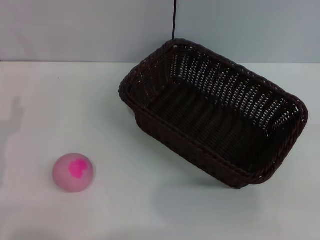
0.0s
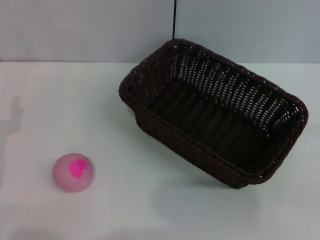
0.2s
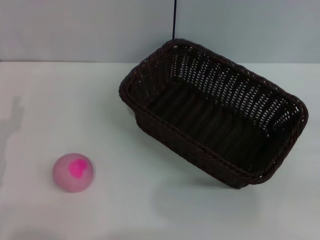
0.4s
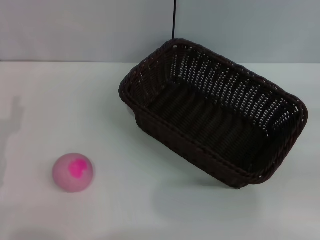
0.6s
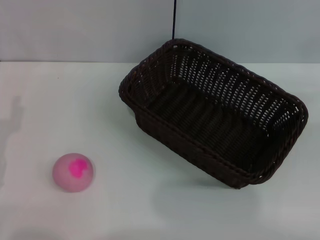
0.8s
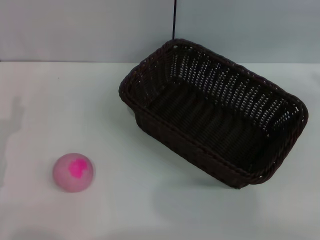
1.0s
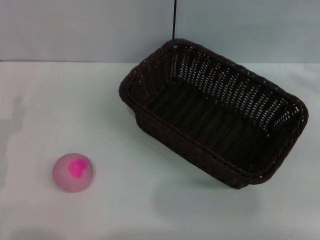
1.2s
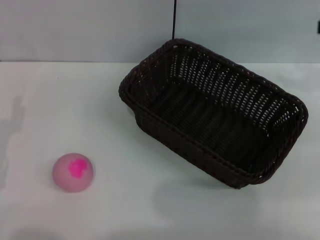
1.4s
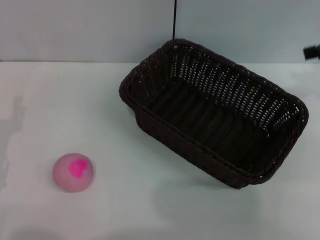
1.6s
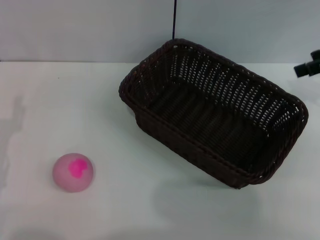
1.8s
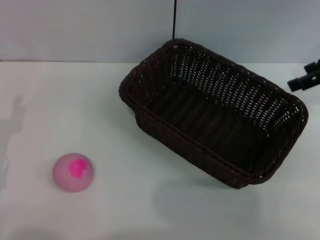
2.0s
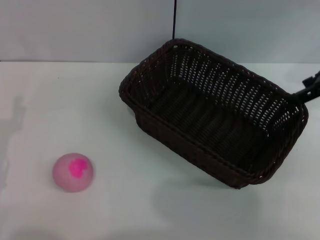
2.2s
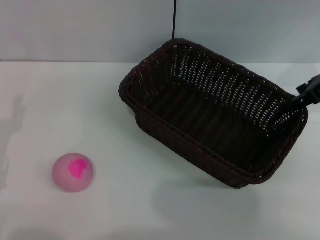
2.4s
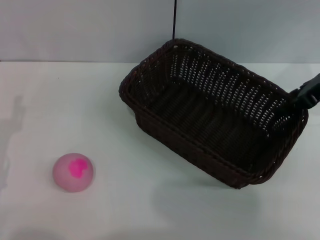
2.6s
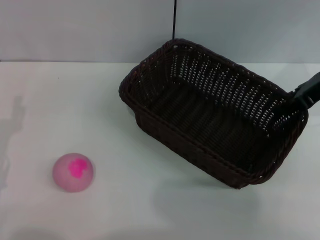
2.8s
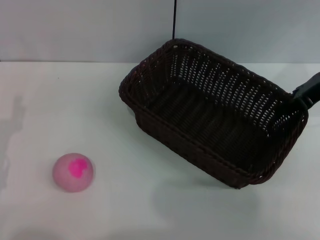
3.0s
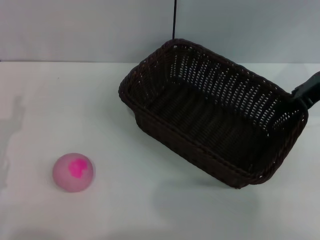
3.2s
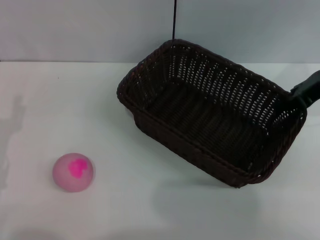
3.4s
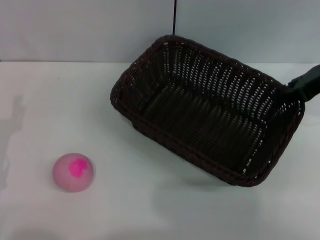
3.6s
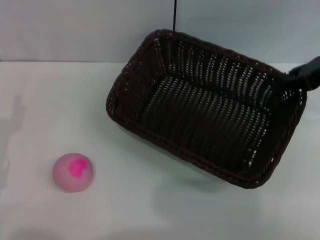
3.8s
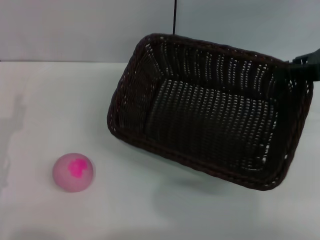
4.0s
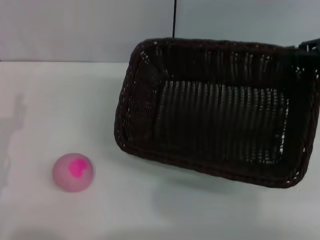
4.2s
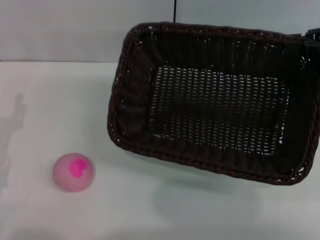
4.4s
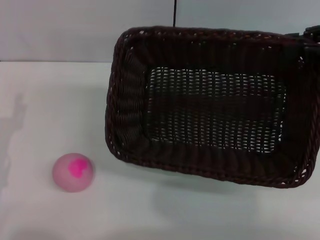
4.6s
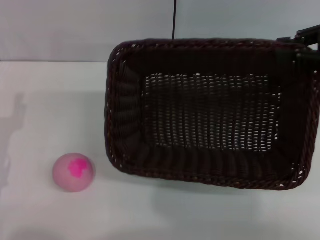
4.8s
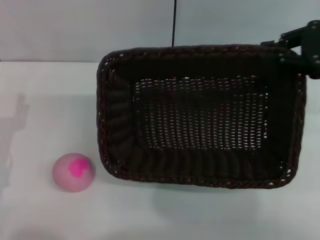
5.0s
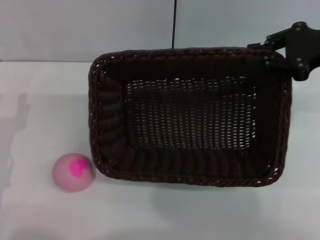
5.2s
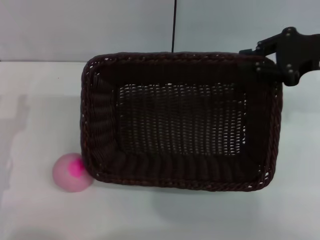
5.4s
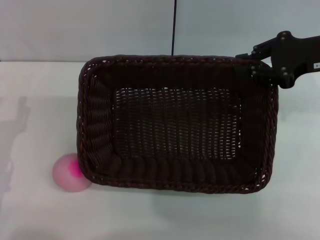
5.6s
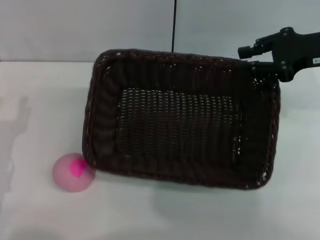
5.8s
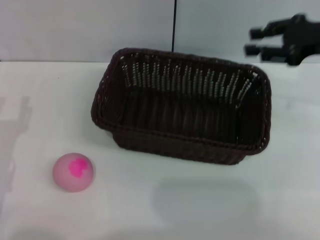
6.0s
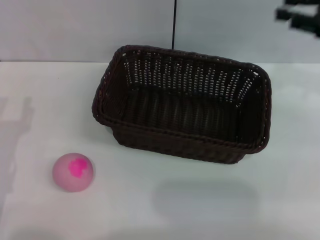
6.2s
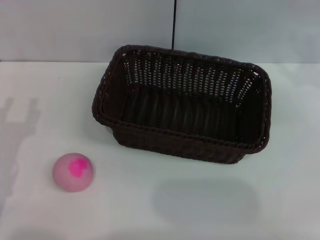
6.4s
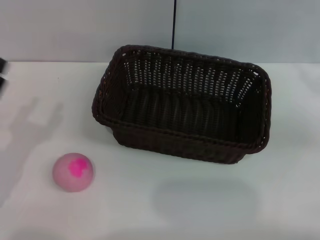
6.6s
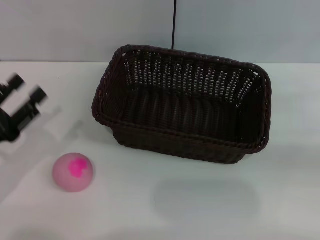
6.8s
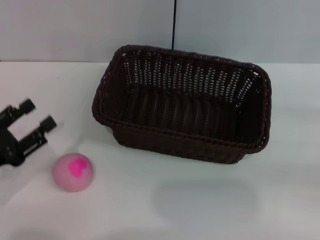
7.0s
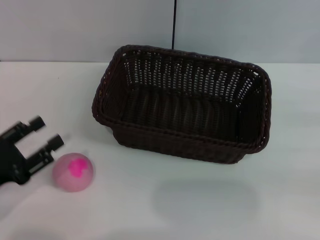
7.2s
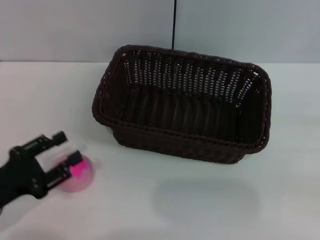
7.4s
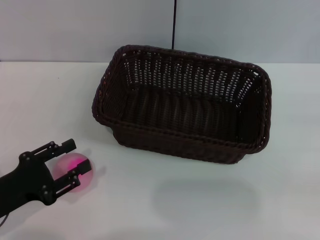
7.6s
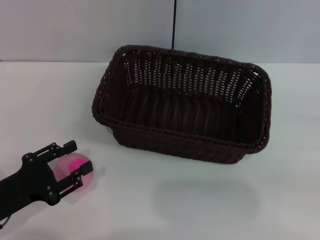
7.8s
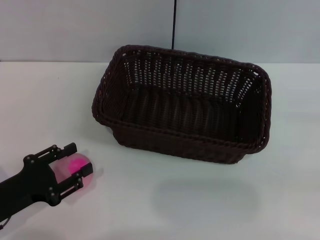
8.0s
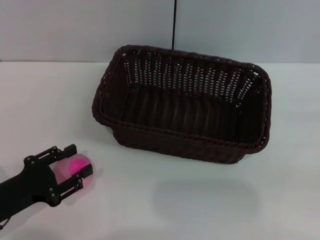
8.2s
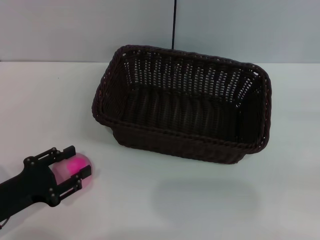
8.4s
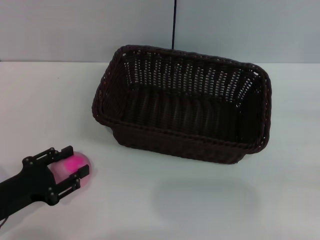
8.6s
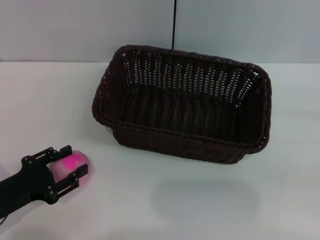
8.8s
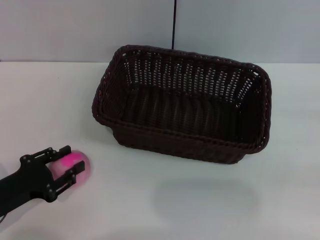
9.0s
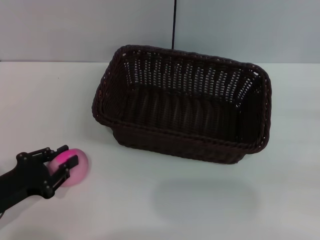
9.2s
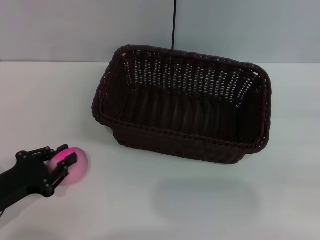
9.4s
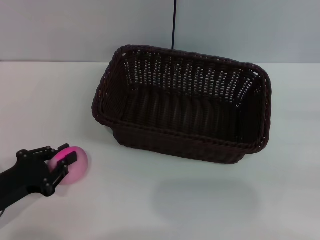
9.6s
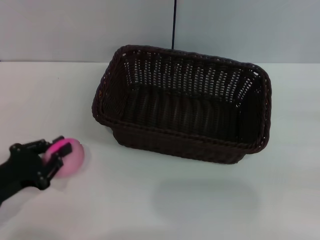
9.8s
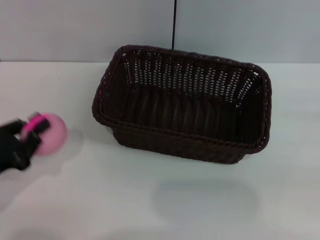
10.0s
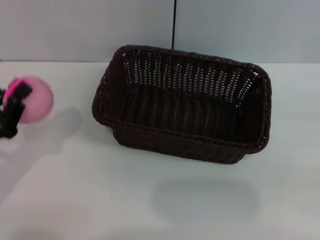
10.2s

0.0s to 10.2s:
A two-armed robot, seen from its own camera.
Step, 0.0s to 3.8s: Pick up the dark basket with the right gripper.
Step, 4.2s to 6.4s: Place the dark basket in the center of view with the right gripper.
Step, 6.6s to 10.0s: Pick up the peach with the left gripper.
0.0s to 1.4s: The right gripper travels upward and forward by approximately 25 cm.
1.4s to 3.0s: The right gripper moves to the left and downward, about 10 cm, and opens, then closes once more.
3.0s to 4.4s: The right gripper goes about 5 cm to the right, and closes.
4.4s to 5.8s: The right gripper travels to the left by about 5 cm.
5.8s to 7.2s: The right gripper heads to the right, backward and downward, covering some 25 cm.
7.2s to 8.8s: There are only small adjustments of the grippers.
8.8s to 10.2s: The left gripper closes up.

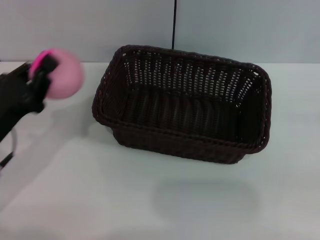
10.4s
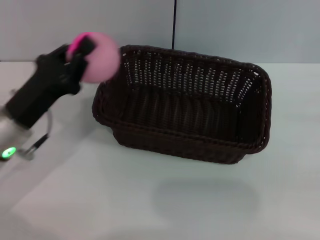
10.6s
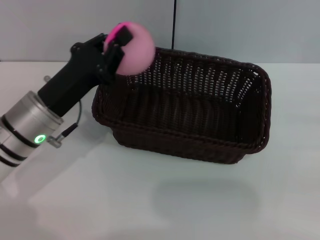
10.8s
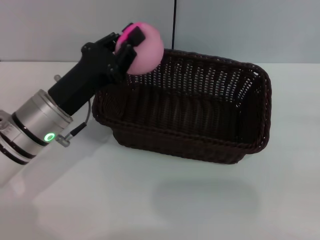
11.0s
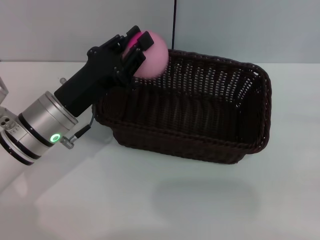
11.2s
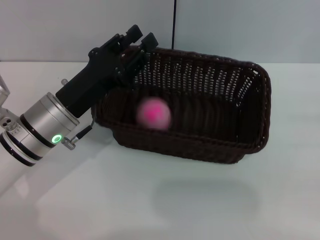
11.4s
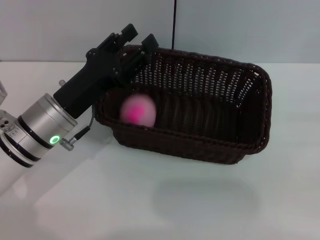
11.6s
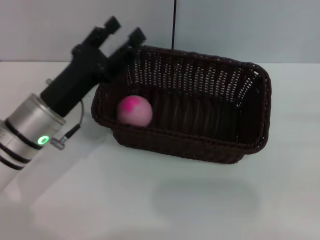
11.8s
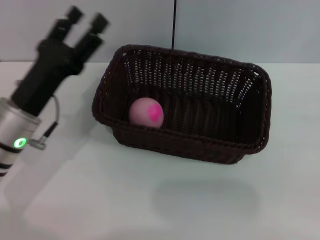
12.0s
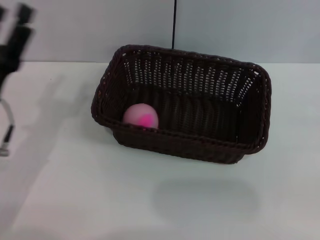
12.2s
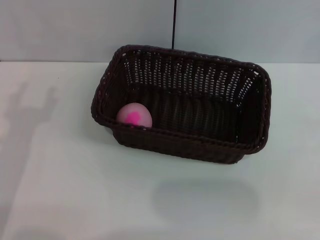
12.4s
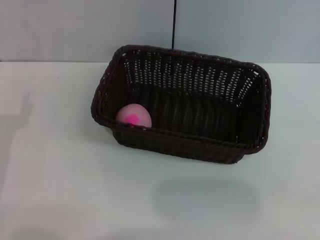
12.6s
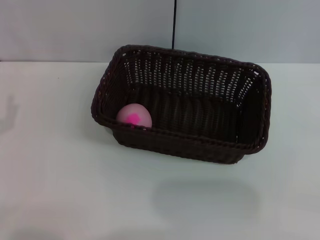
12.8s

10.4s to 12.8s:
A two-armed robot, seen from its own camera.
Step, 10.4s to 12.0s: Place the peach into the basket with the left gripper.
10.4s to 11.6s: The left gripper shifts roughly 10 cm to the right and forward, and opens.
11.6s to 12.8s: The left gripper is displaced to the left and backward by some 15 cm, and opens.

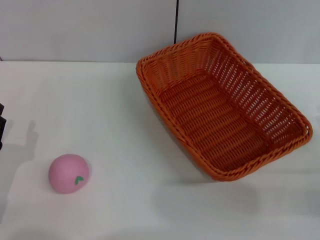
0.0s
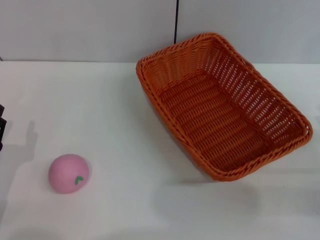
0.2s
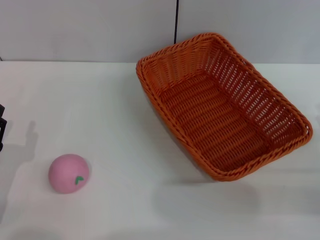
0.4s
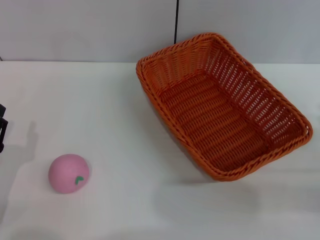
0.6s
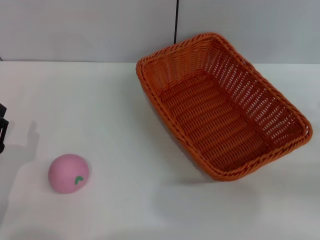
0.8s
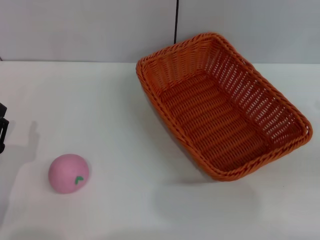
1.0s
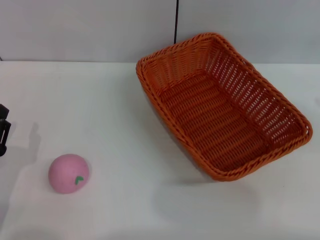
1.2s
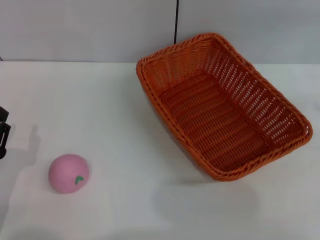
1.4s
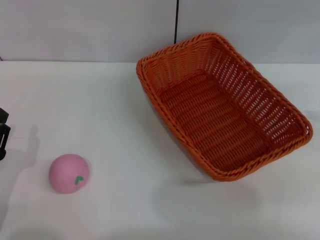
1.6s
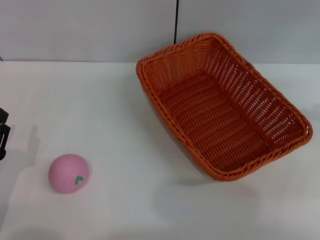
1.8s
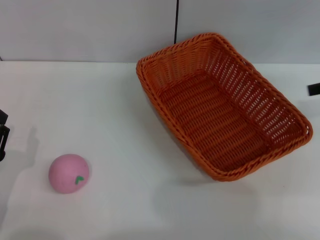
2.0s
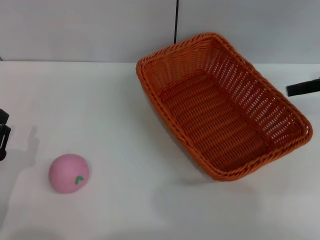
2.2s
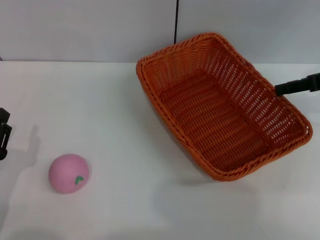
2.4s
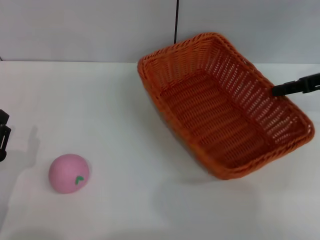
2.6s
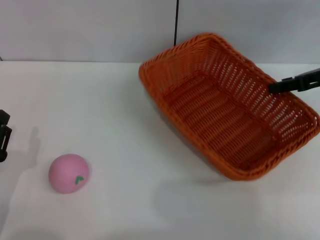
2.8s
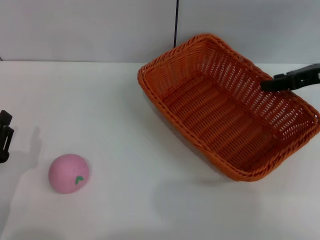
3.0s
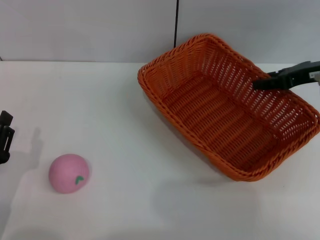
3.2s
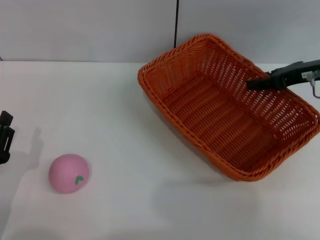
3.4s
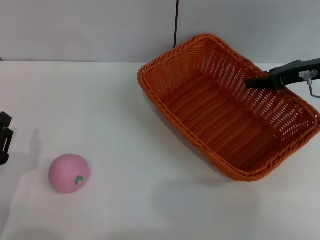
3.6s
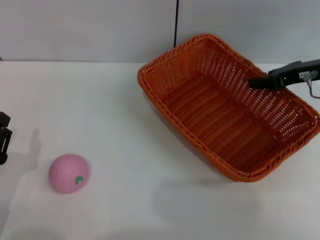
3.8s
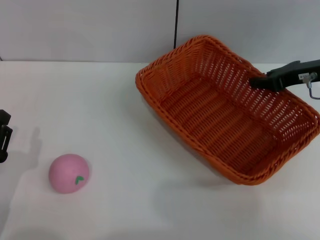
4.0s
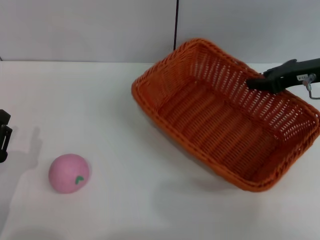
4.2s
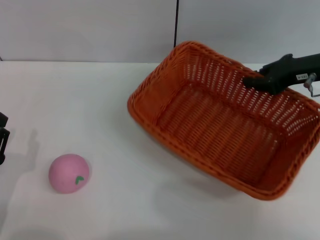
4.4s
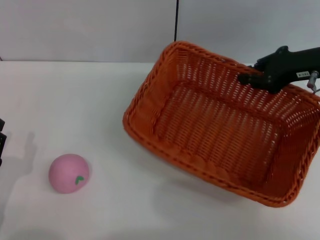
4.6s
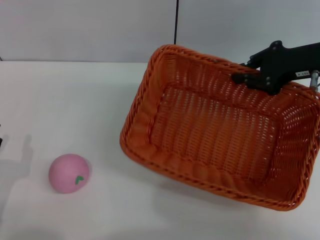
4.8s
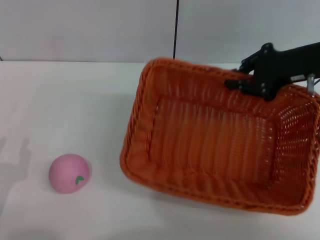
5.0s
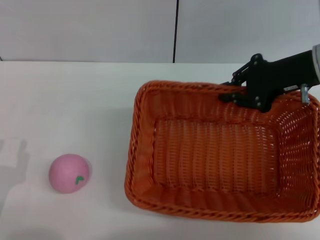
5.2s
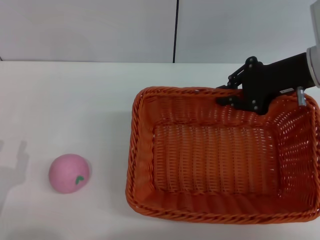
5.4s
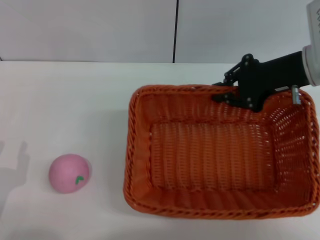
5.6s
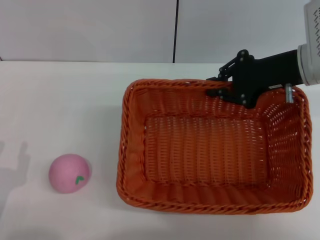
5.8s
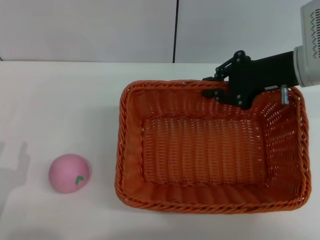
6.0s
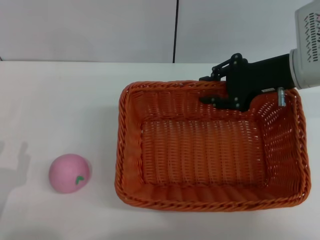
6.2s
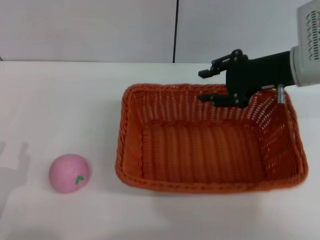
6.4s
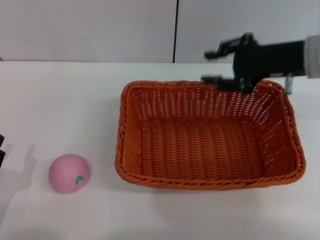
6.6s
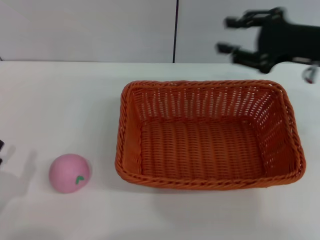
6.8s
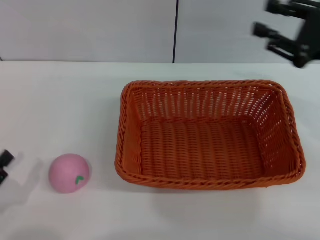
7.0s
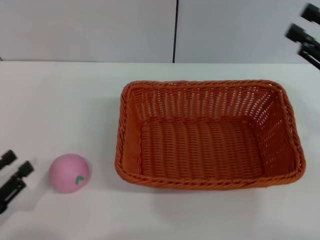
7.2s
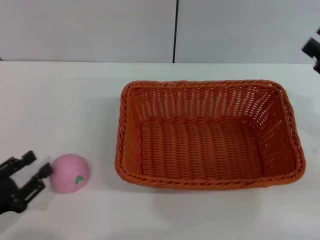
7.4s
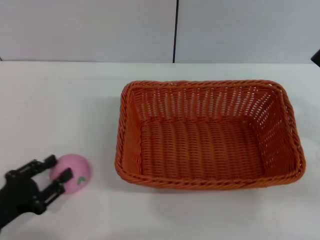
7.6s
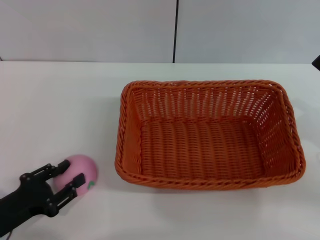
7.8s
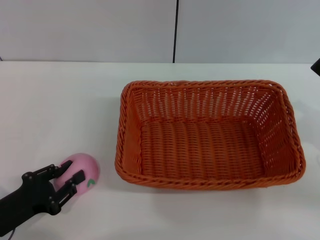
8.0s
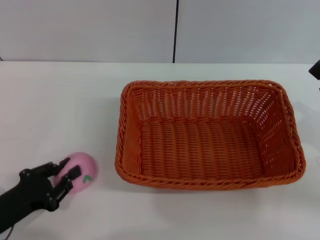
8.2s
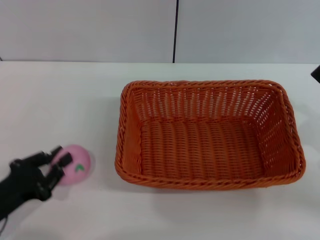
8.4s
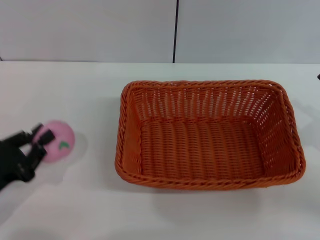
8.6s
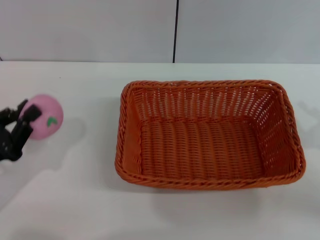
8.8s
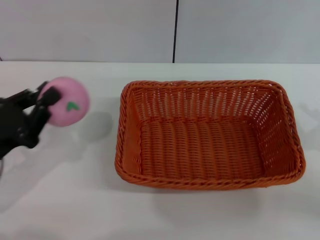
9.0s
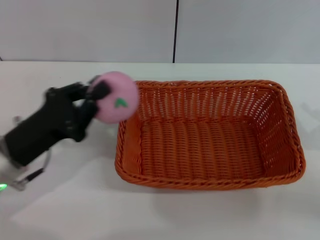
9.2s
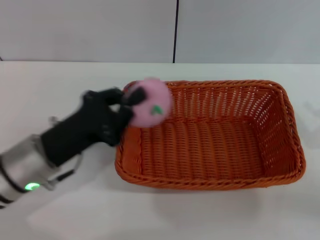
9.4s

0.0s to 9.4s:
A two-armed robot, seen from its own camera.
Step, 0.0s to 4.6s: Pick up the light basket with the right gripper.
Step, 4.8s to 6.6s: Place the light basket in the center of view with the right gripper.
Step, 6.8s to 8.8s: Pick up the peach with the left gripper.
0.0s to 1.6s: The right gripper heads upward and forward, covering approximately 25 cm.
1.6s to 3.2s: The right gripper heads to the left, downward and forward, covering roughly 15 cm.
3.2s to 4.8s: The right gripper closes.
4.8s to 6.2s: The right gripper changes place by roughly 5 cm.
6.2s to 7.8s: The right gripper is displaced backward and to the right by approximately 20 cm, and opens its fingers.
7.8s to 9.4s: The right gripper ends up about 5 cm from where it was. The left gripper shifts roughly 15 cm to the right, forward and upward, and closes up.
